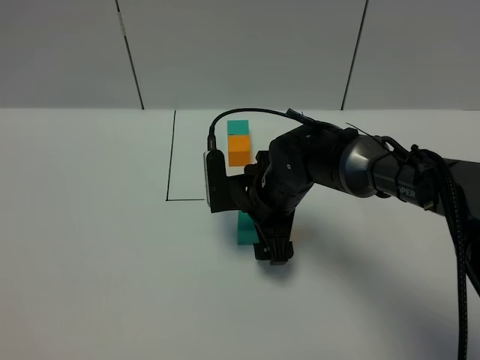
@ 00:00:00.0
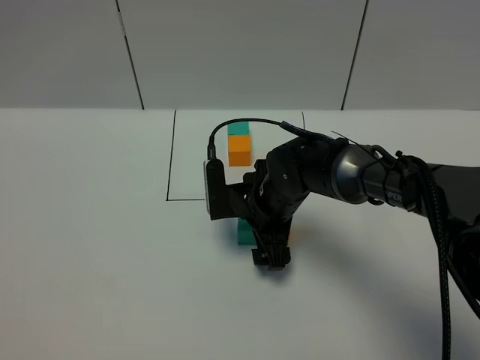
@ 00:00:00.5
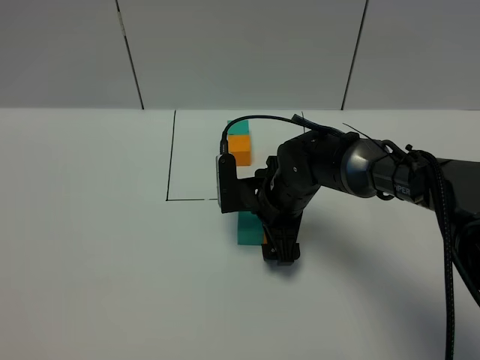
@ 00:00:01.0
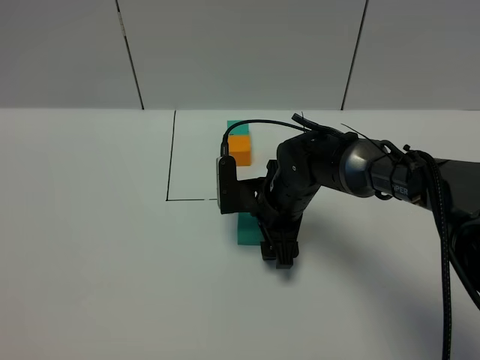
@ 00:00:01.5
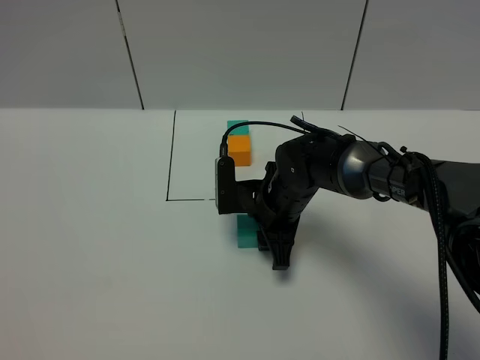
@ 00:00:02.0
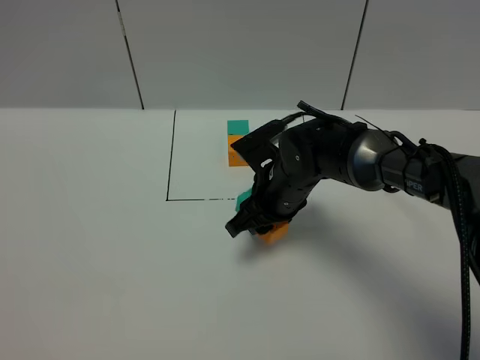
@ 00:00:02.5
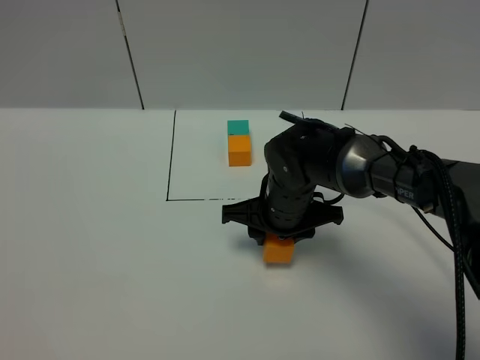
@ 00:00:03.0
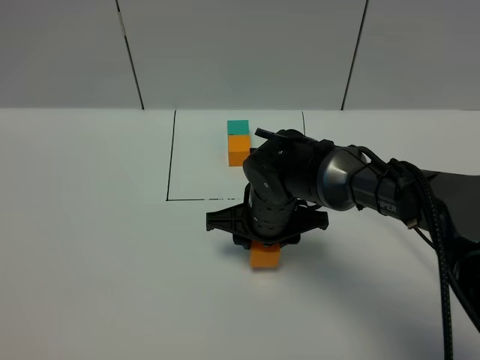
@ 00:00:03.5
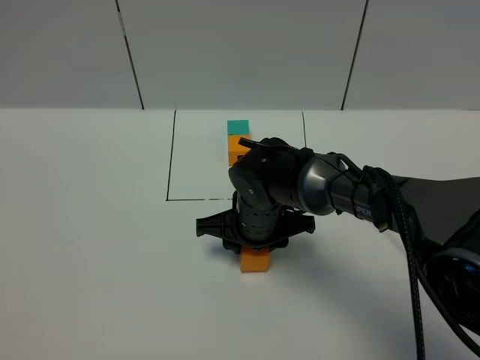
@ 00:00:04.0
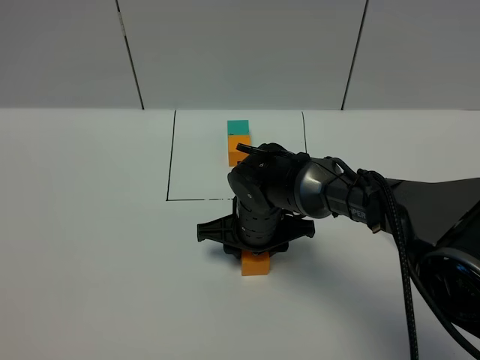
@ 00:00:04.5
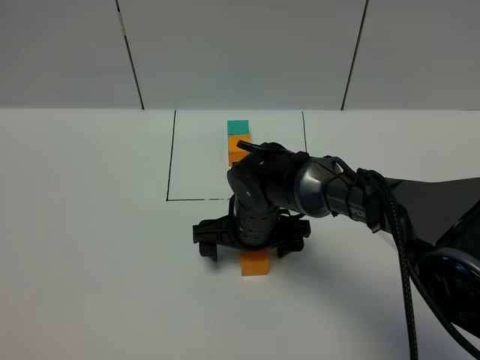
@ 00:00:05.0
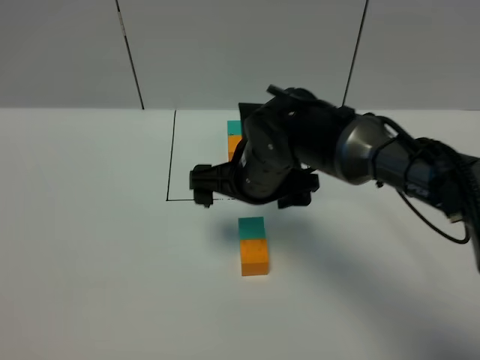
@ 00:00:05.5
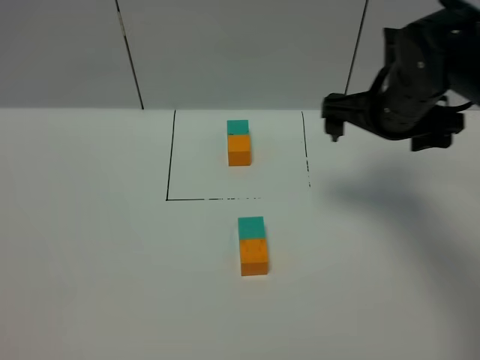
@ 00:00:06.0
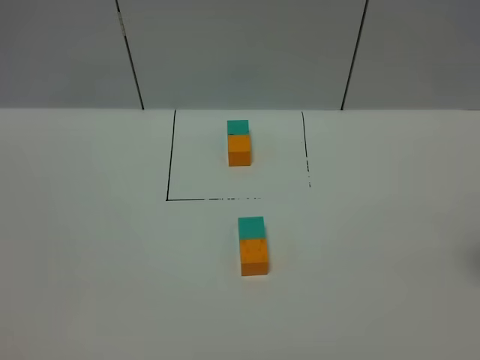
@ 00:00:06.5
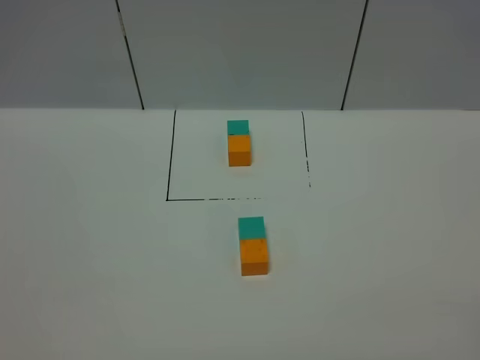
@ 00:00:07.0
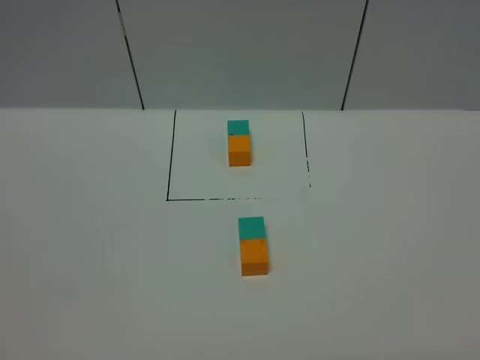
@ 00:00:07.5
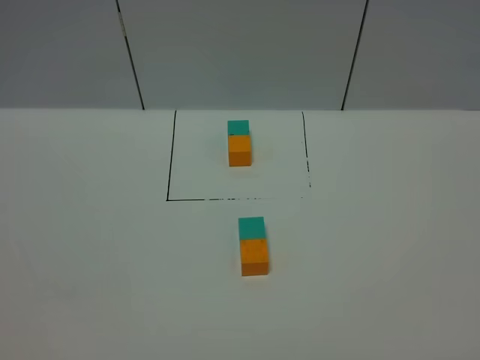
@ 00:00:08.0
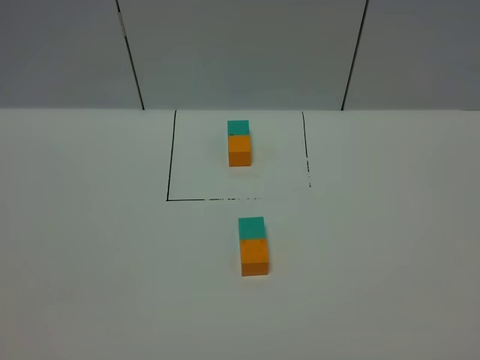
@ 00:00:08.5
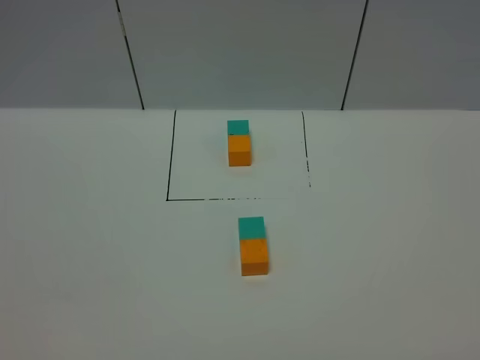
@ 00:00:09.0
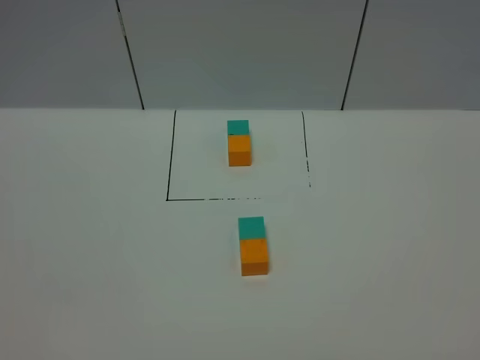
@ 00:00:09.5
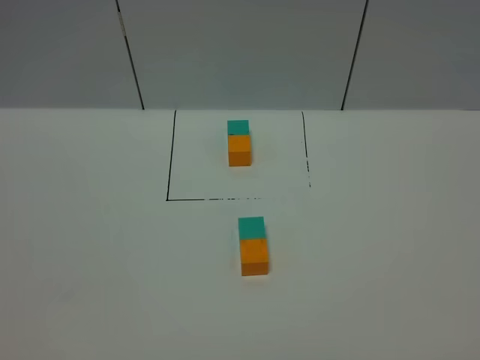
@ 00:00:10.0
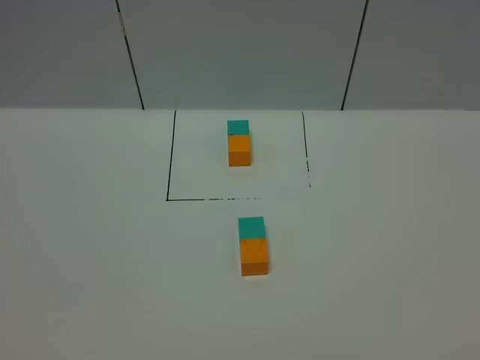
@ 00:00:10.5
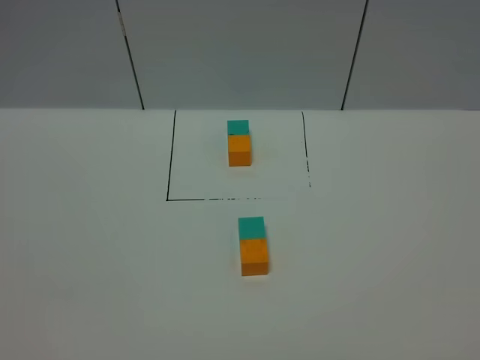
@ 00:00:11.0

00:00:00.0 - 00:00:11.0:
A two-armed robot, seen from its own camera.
Task of the whole recording: According to the building block template in front, assemble the scattered blocks together.
Step, 00:00:00.0 - 00:00:05.5: Adjust the pose of the building blocks.
00:00:00.0 - 00:00:02.0: The right gripper closes.
00:00:02.0 - 00:00:03.5: The right gripper ends up about 5 cm from where it was.
00:00:03.5 - 00:00:05.5: The right gripper shifts about 5 cm upward, and opens.
00:00:05.5 - 00:00:07.5: The right gripper moves backward and to the right, about 40 cm.
00:00:09.0 - 00:00:11.0: The two grippers keep their place.
